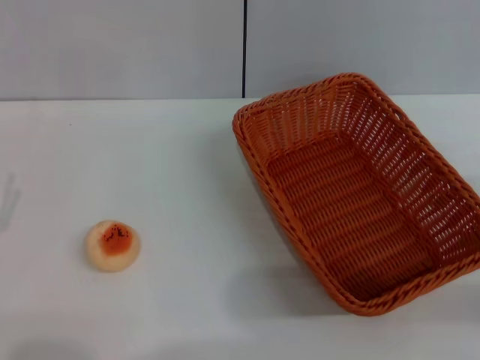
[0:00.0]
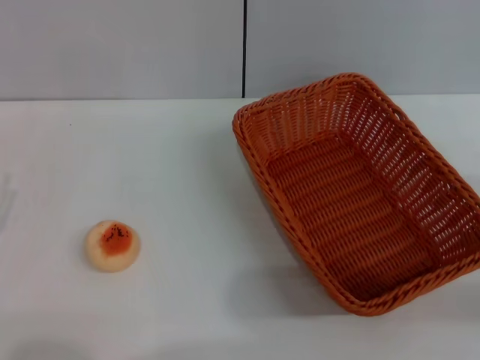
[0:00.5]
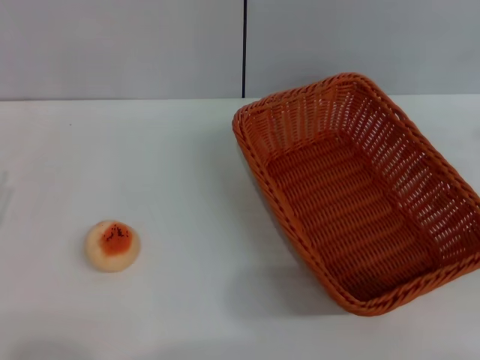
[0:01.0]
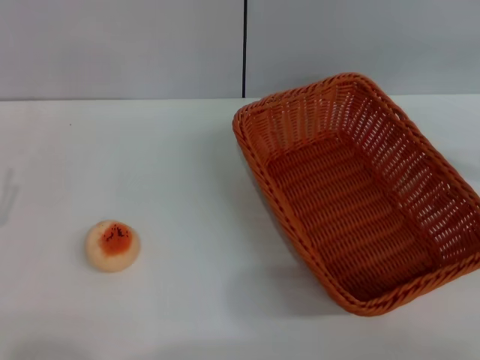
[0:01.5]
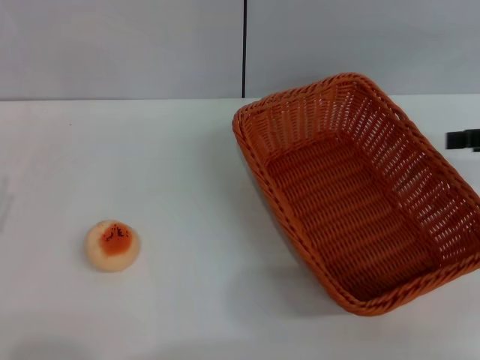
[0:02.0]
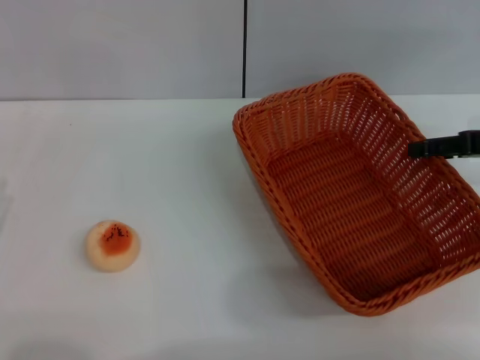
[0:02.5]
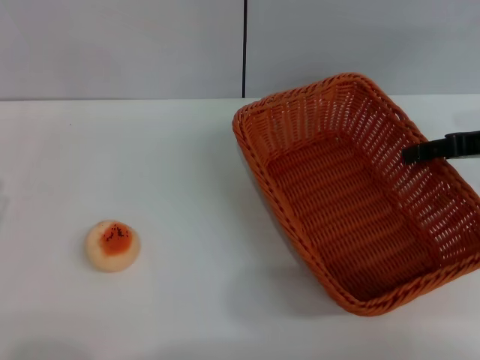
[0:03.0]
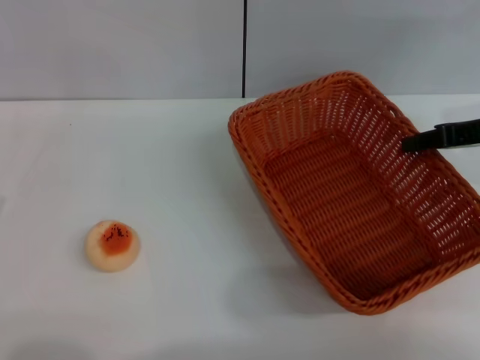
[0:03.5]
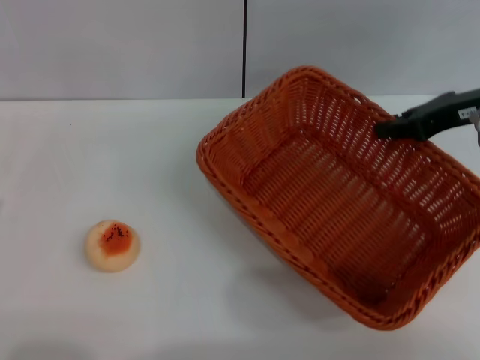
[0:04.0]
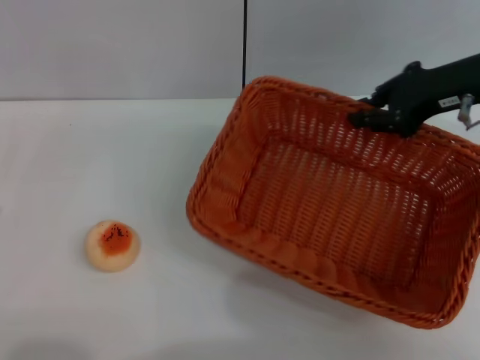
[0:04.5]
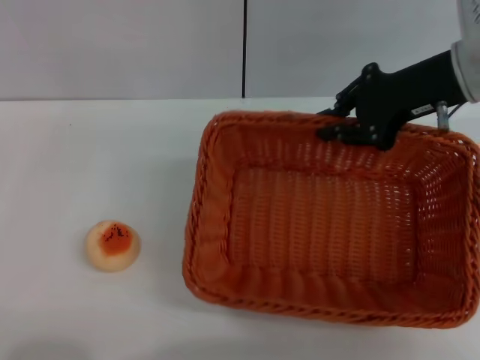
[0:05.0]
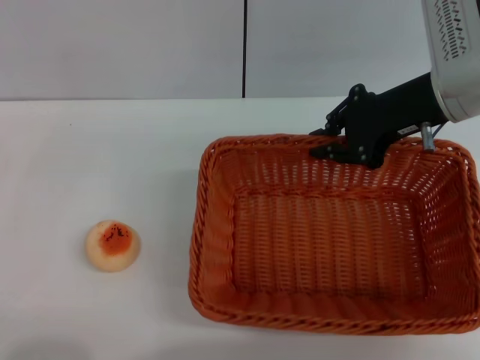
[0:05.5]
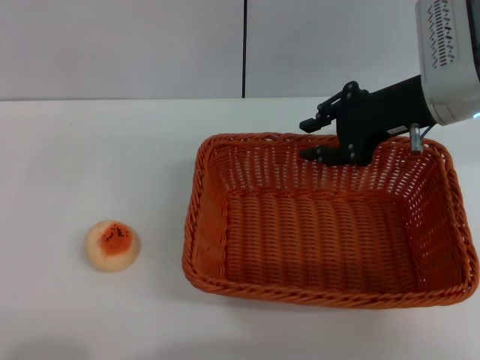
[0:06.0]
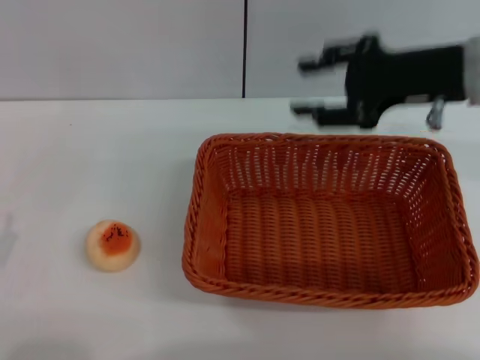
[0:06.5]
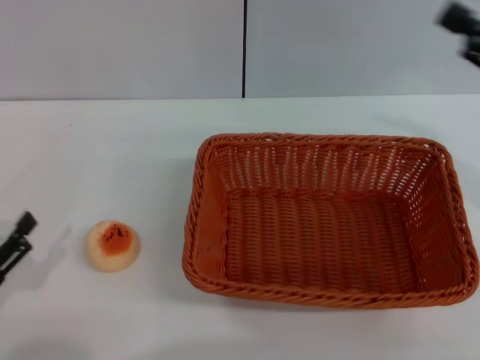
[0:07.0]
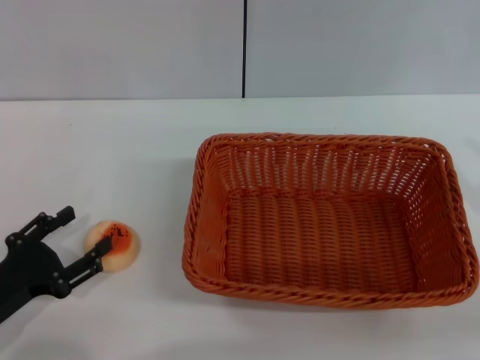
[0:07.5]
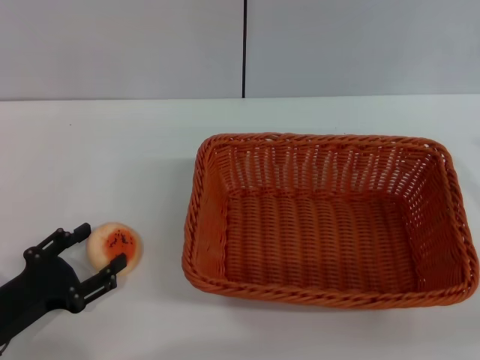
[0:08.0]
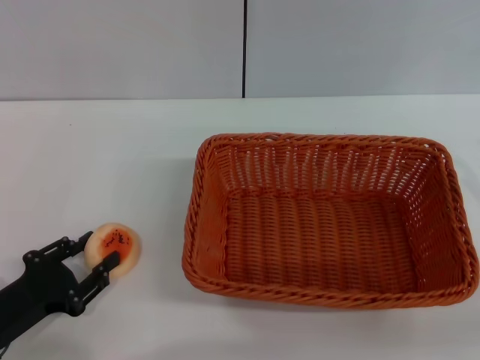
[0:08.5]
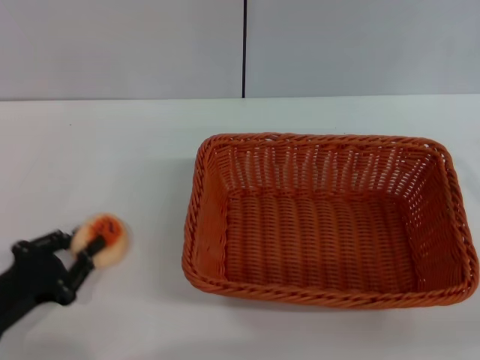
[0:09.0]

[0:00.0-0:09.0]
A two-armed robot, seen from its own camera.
Step, 0:00.0 to 0:06.0: Move the basket to the center of view with the right gripper.
0:02.0 to 0:04.5: The right gripper travels to the left and forward by about 15 cm, and closes up.
0:04.5 to 0:07.0: The right gripper shifts some 15 cm backward and to the right, and opens its fingers.
0:07.0 to 0:09.0: The right gripper is displaced backward and to the right by roughly 10 cm. Meanwhile the left gripper closes its fingers.

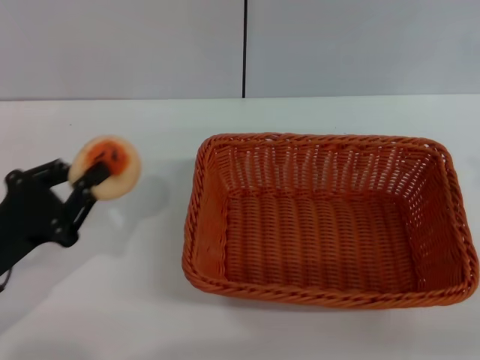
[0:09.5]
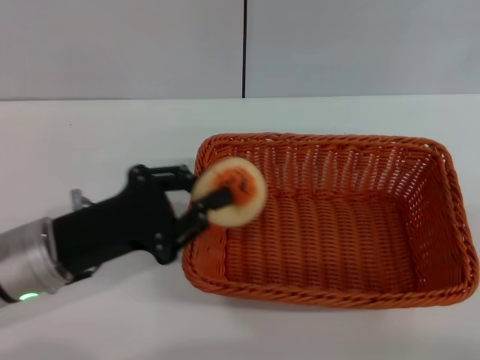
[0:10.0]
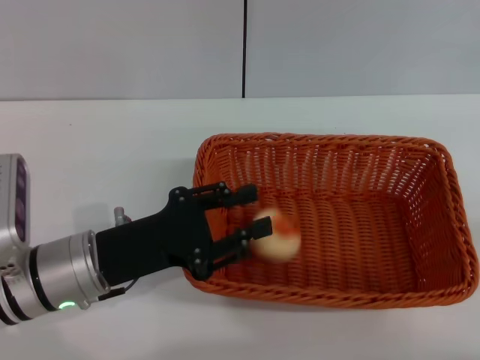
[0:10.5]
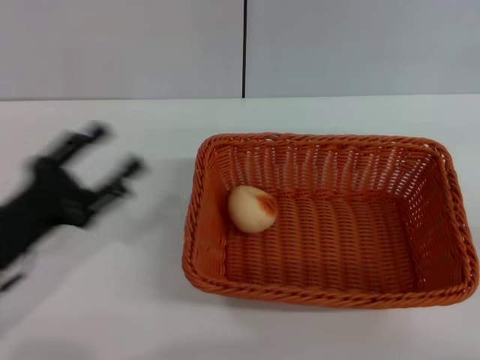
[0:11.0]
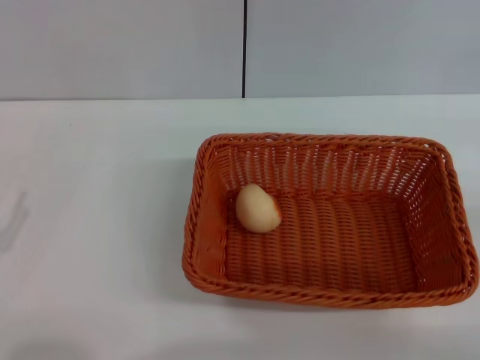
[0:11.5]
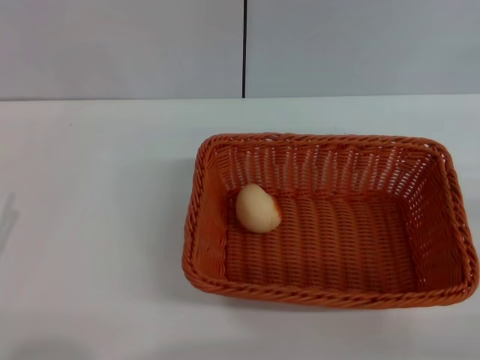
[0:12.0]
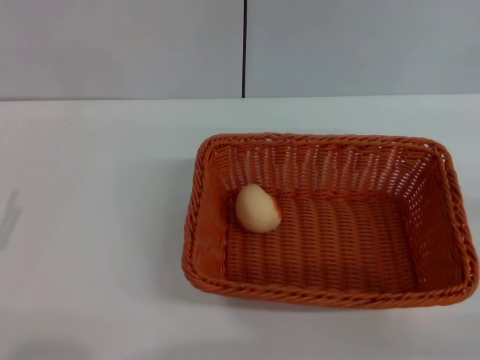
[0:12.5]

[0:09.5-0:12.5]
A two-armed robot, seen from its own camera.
Step, 0:09.5 to 0:10.5: Place the egg yolk pastry into the basket with the left gripper.
0:09.5 to 0:11.0: The left gripper travels to the right and back again, roughly 10 cm each way, and opens. Meanwhile the right gripper shifts about 5 cm downward.
0:11.0 to 0:12.5: The left gripper travels backward and to the left by about 10 cm.
